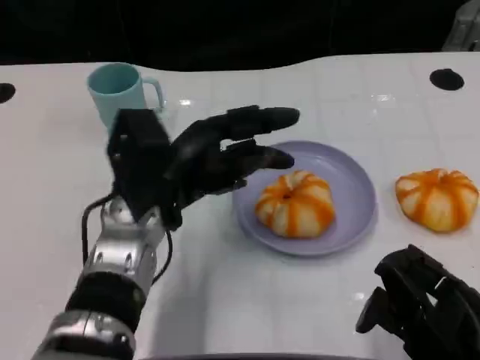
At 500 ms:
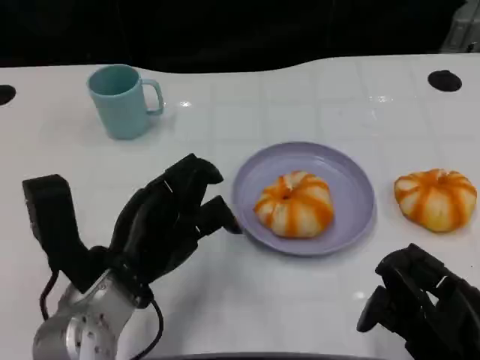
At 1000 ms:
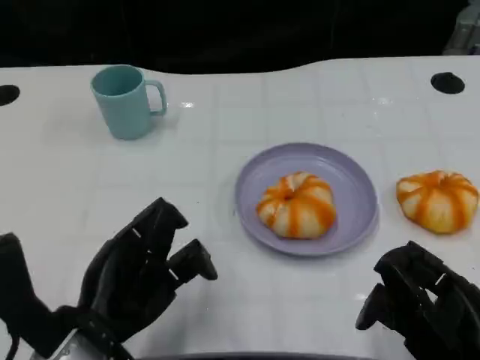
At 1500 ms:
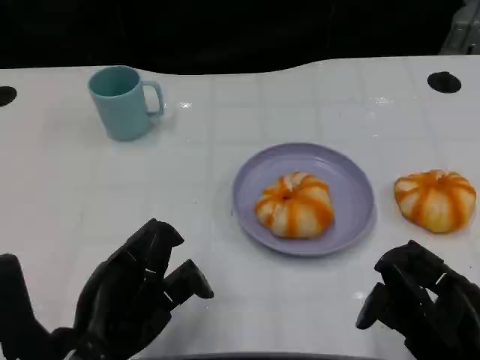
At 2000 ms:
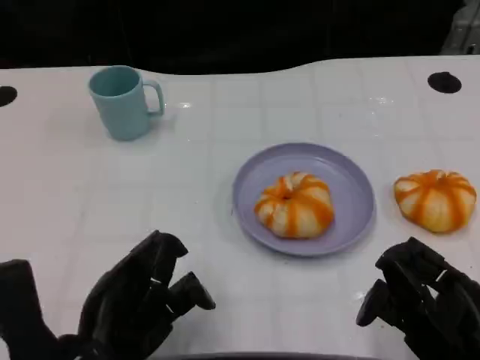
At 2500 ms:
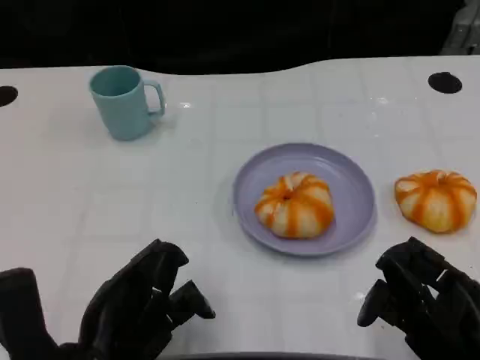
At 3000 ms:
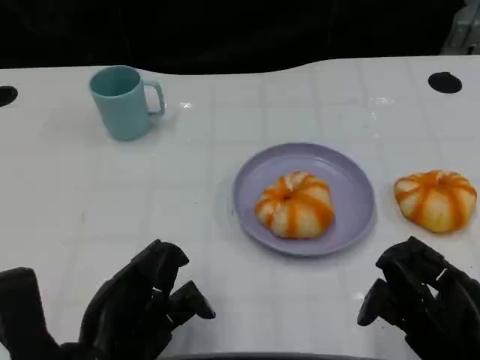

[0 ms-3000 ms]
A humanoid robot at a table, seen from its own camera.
Task of the whole recording: Grasp the bread from the table and place it into the plate.
0 ms to 1500 ms: The left hand heads backward, covering about 15 cm.
1500 ms to 3000 ms: Both hands stay about where they are.

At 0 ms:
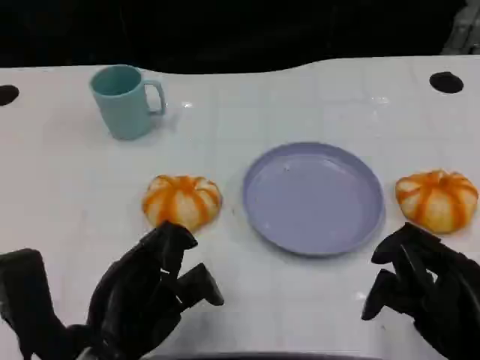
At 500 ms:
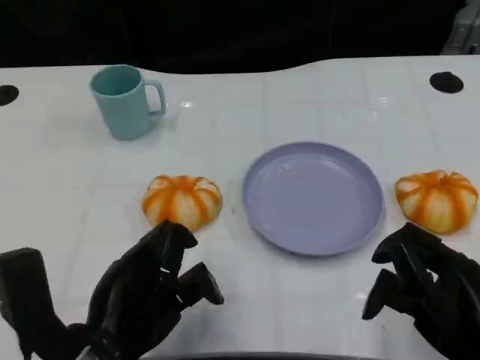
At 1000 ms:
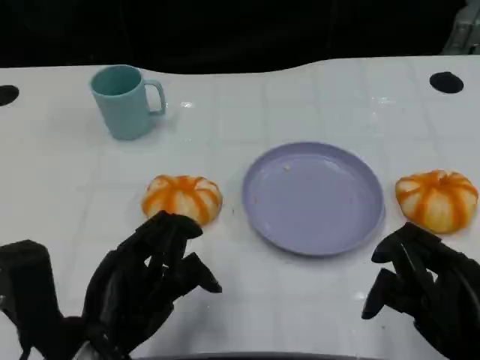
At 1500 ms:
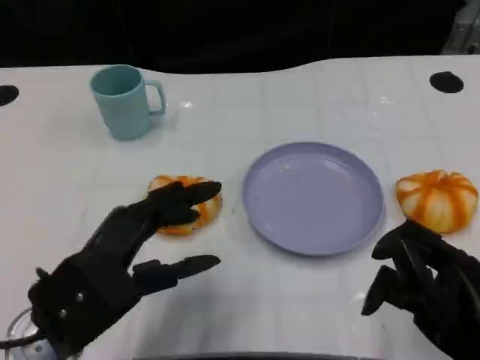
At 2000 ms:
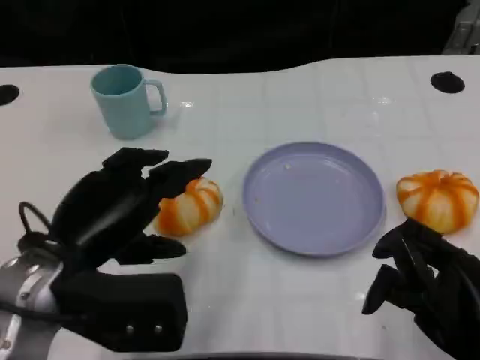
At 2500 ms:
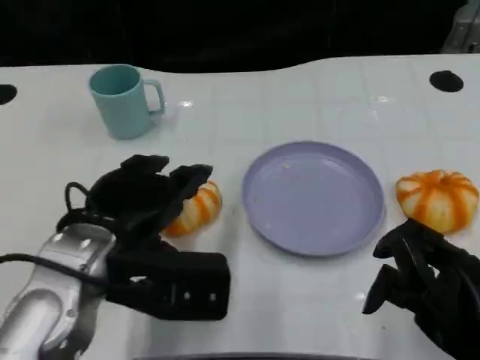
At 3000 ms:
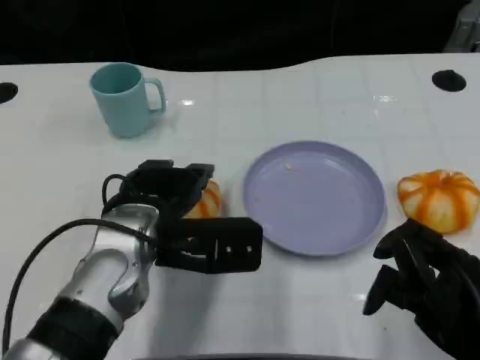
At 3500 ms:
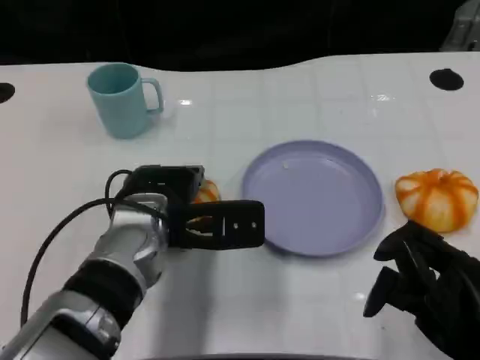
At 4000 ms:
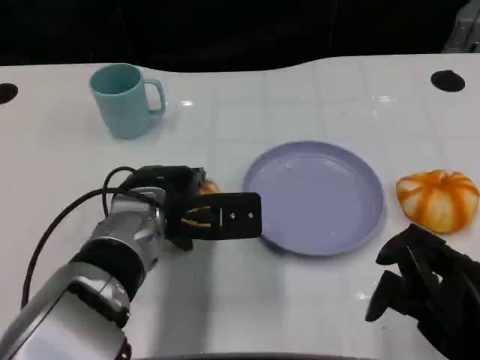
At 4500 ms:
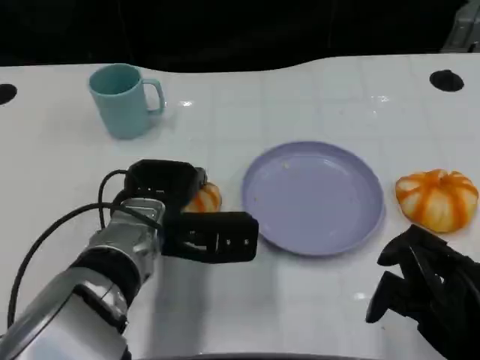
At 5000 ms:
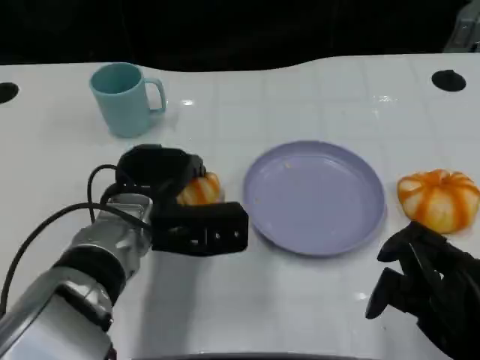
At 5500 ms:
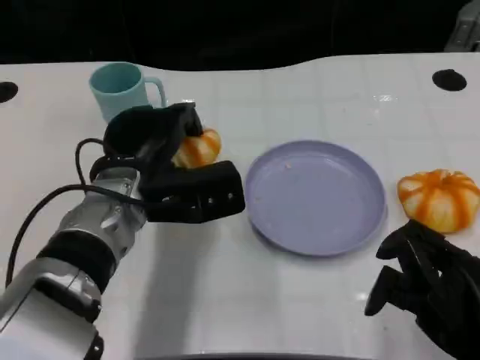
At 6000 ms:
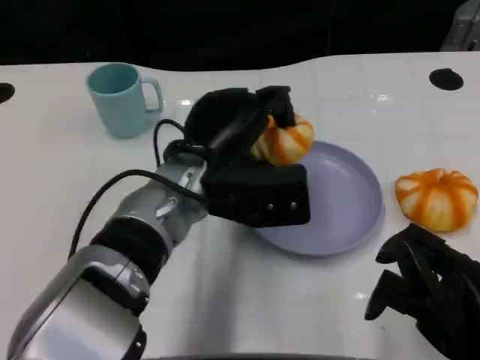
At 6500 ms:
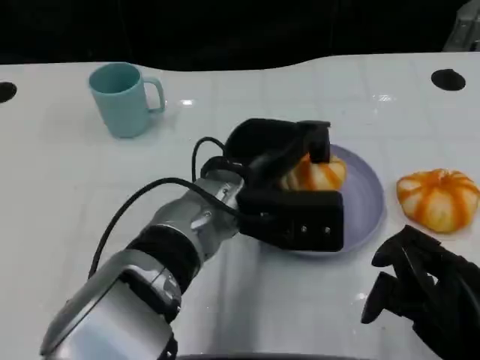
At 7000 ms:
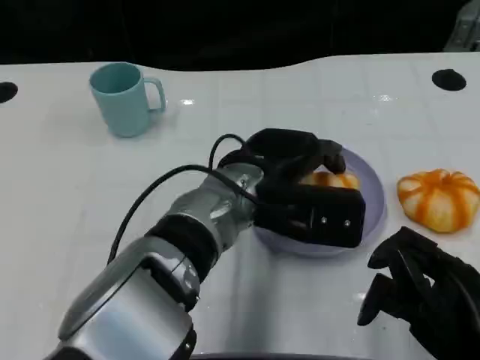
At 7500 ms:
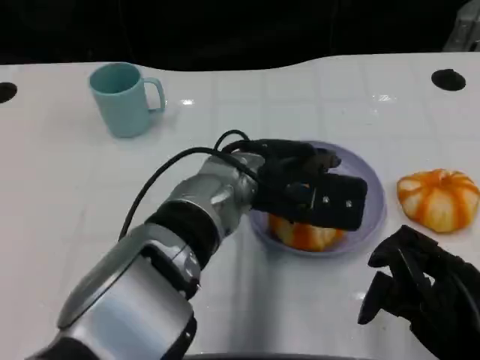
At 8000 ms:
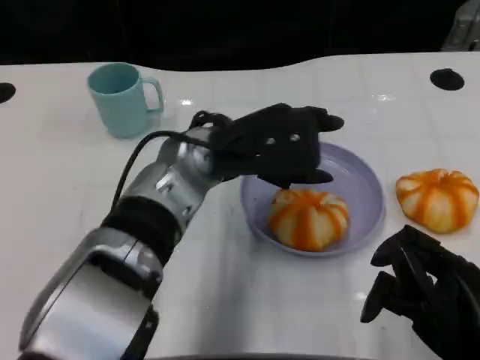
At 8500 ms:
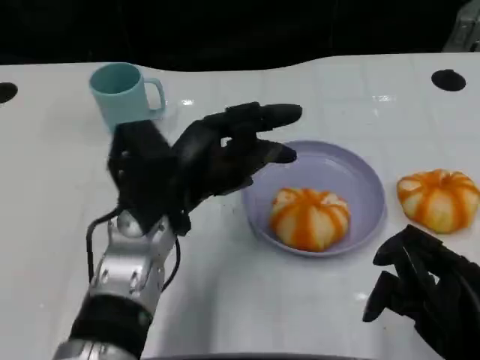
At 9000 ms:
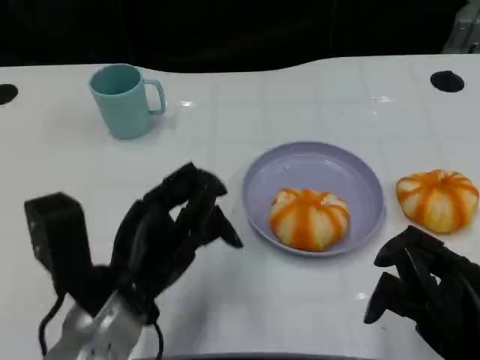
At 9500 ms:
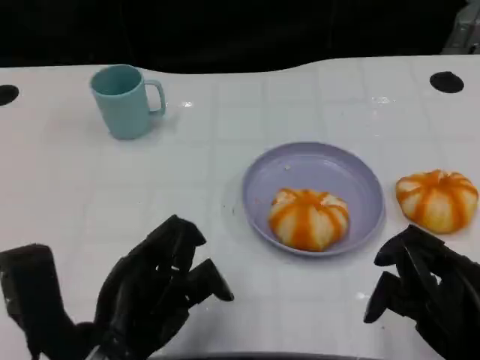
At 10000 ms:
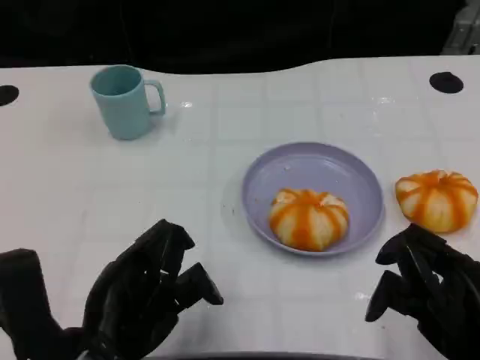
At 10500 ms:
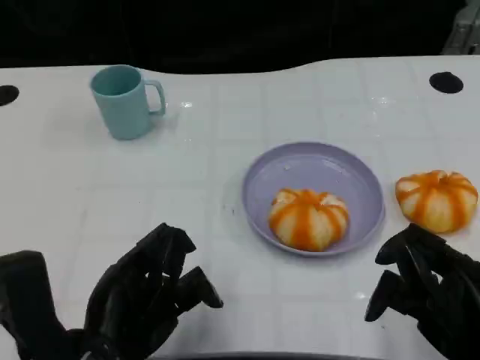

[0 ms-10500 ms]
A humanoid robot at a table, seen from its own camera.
Task of the whole recording: Grasp the bread from the table and place it into the plate.
0 ms to 2000 ms: The left hand is displaced upward and forward by roughly 10 cm.
2000 ms to 4000 ms: The left hand is displaced forward, to the right and downward by about 15 cm.
4000 ms to 6500 ms: The left hand shifts about 10 cm to the right.
6500 ms to 8500 ms: The left hand goes some 10 cm to the left.
8500 ms to 10500 ms: The left hand shifts roughly 15 cm backward and to the left.

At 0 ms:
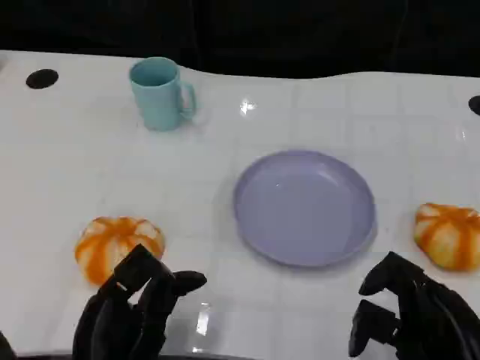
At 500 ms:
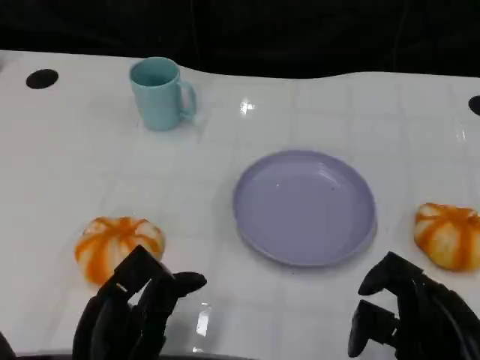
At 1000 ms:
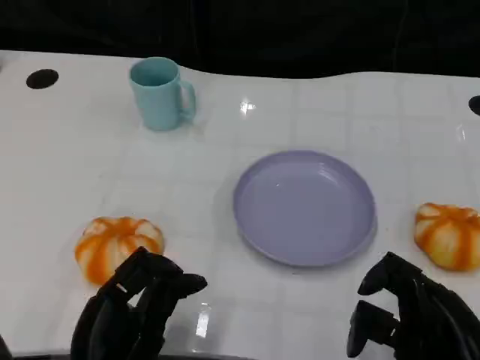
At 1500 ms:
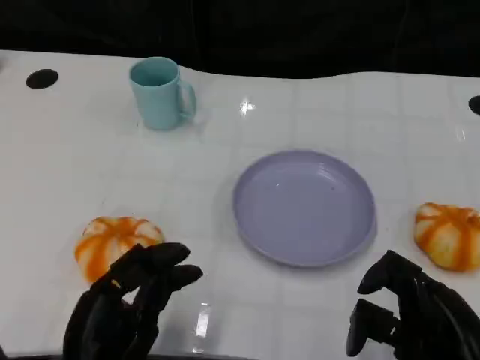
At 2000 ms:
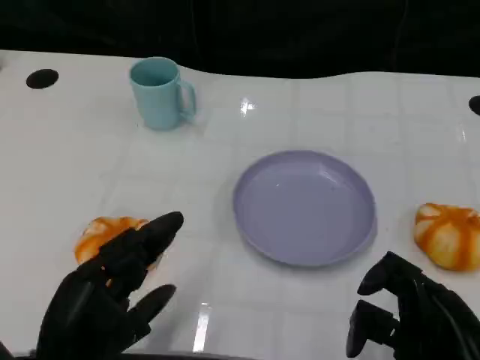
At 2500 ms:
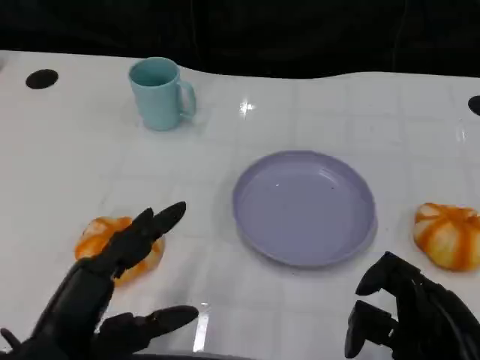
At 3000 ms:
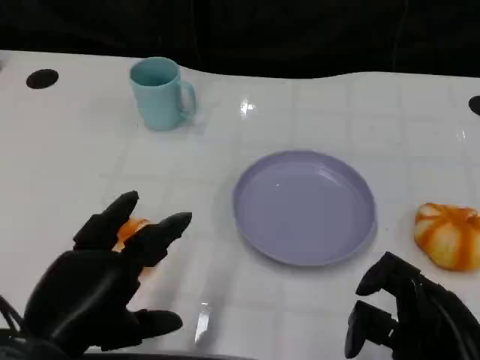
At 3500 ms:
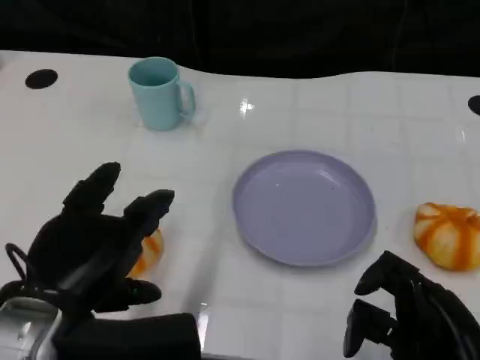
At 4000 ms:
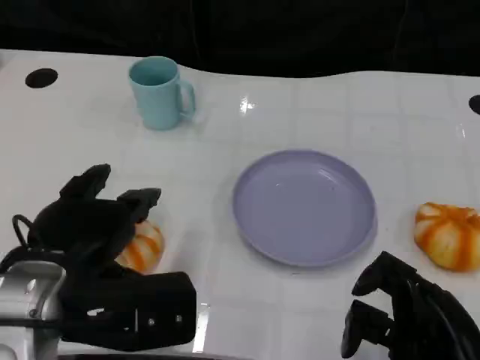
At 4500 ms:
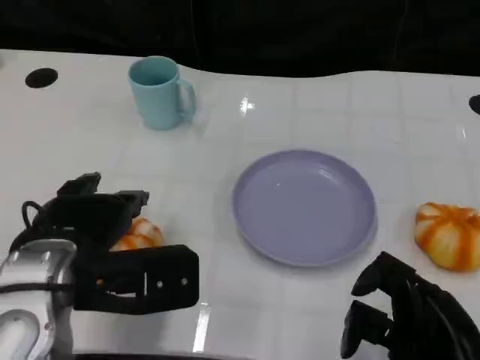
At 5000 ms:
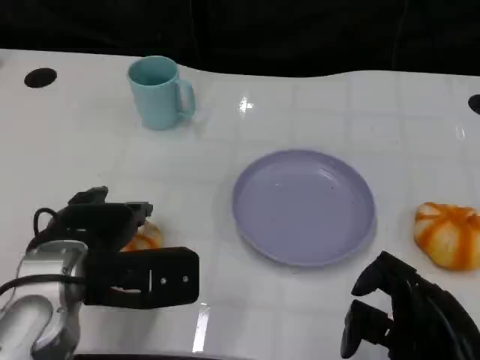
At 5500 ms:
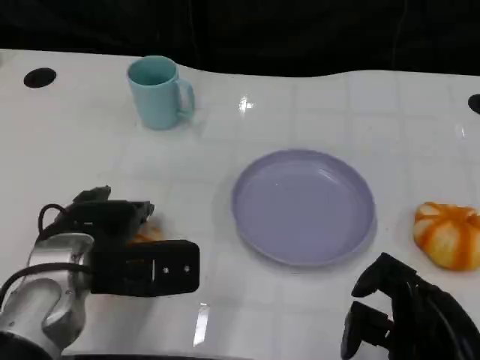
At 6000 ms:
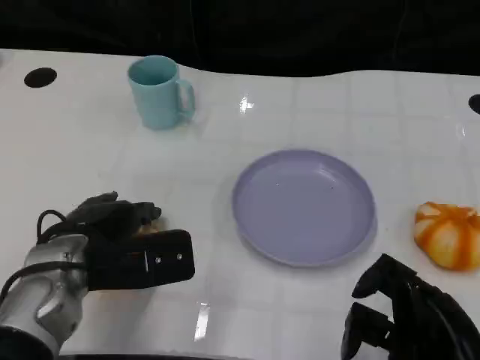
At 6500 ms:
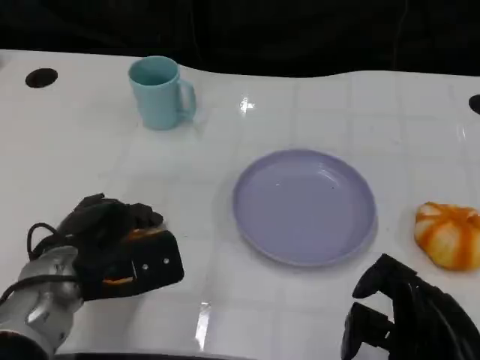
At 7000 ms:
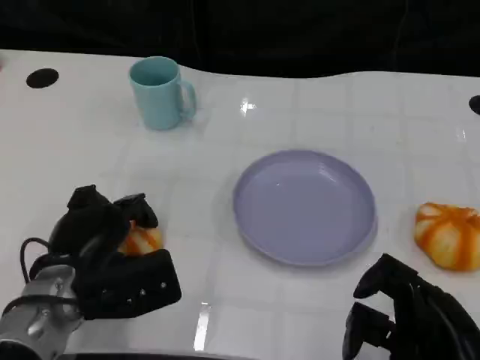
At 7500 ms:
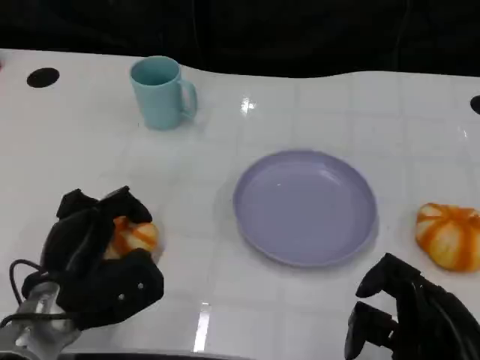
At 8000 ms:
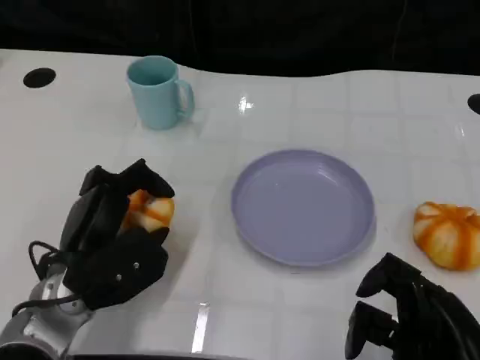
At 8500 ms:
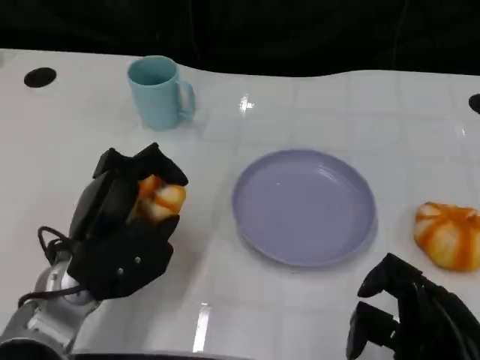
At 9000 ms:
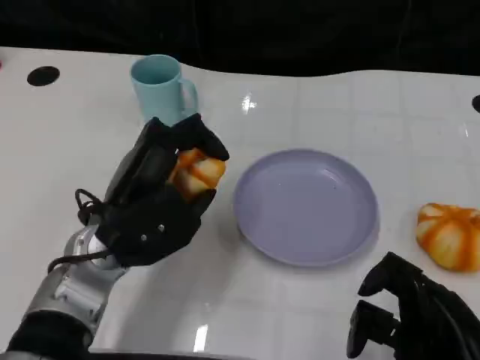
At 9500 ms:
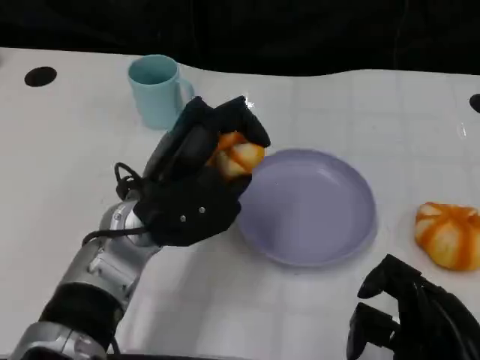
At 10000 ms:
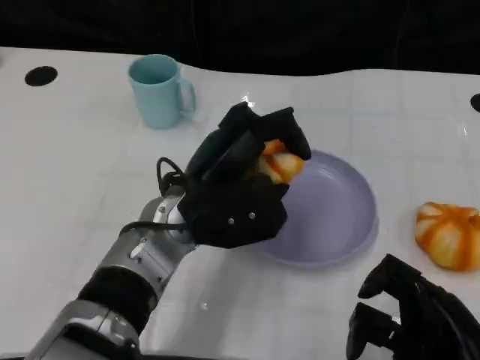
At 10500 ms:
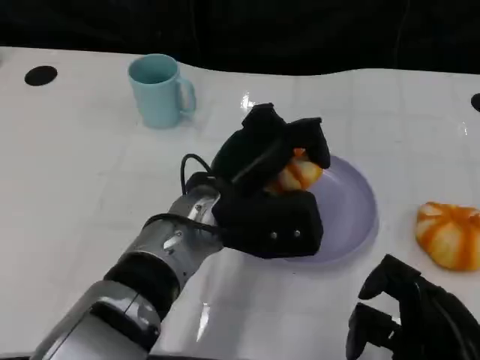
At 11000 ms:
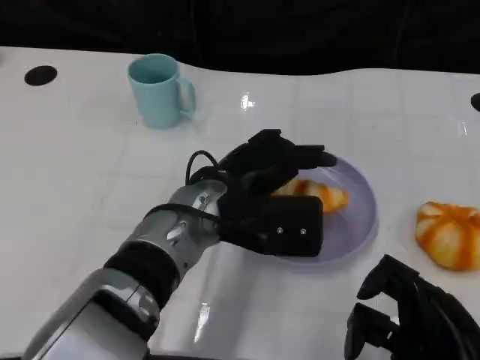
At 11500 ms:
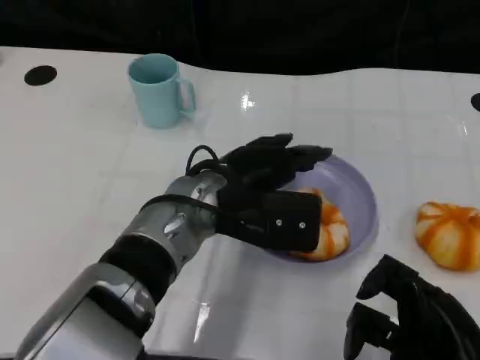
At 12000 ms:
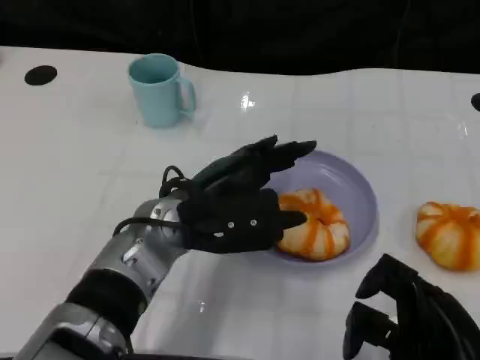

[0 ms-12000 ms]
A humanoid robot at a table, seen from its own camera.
Task of the whole recording: Grasp the bread from the table and place it into the plate.
2000 ms to 4000 ms: The left hand travels upward and forward by roughly 10 cm.
4000 ms to 6000 ms: The left hand heads downward and forward, covering some 10 cm.
8000 ms to 10000 ms: The left hand shifts approximately 15 cm to the right and upward.
